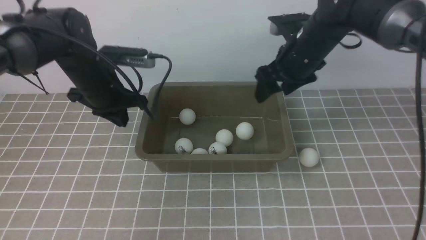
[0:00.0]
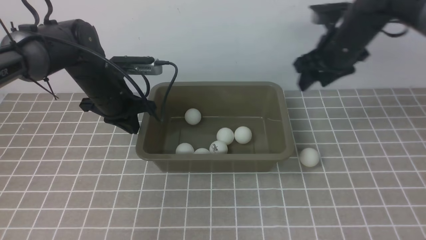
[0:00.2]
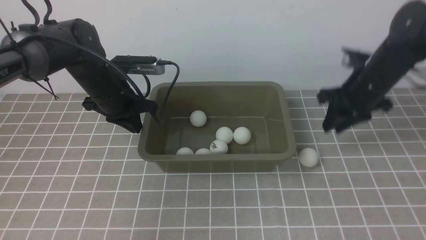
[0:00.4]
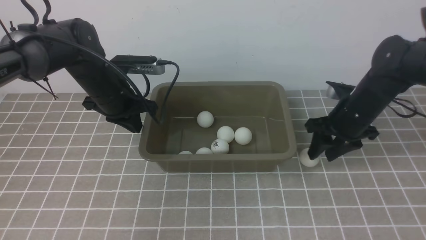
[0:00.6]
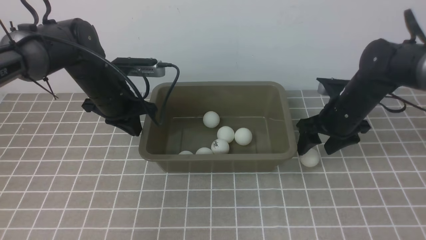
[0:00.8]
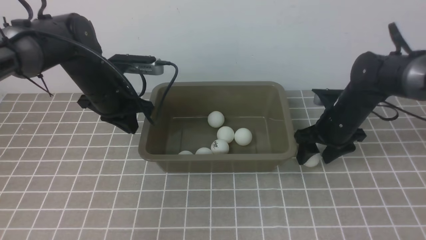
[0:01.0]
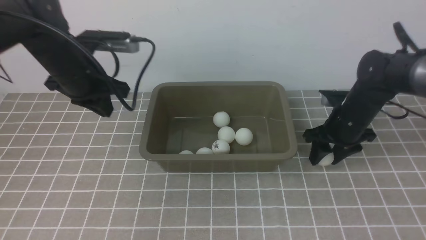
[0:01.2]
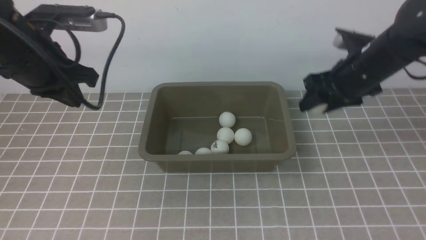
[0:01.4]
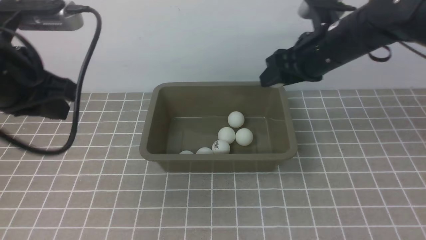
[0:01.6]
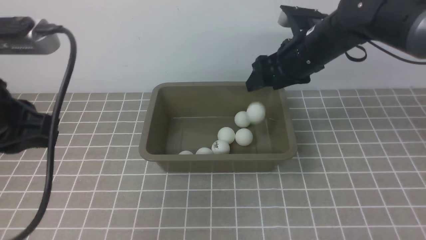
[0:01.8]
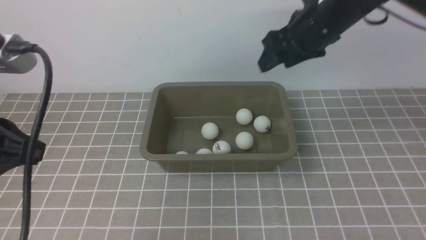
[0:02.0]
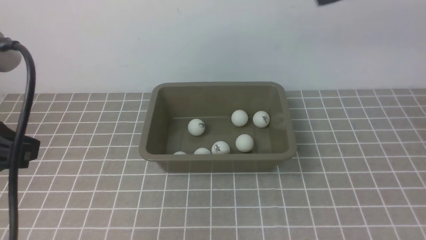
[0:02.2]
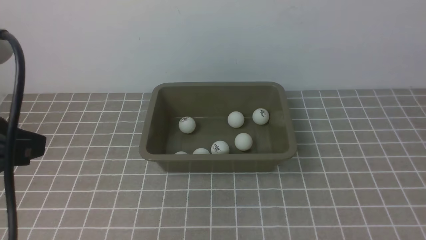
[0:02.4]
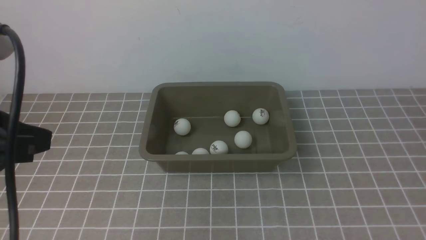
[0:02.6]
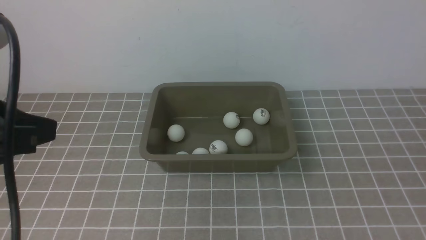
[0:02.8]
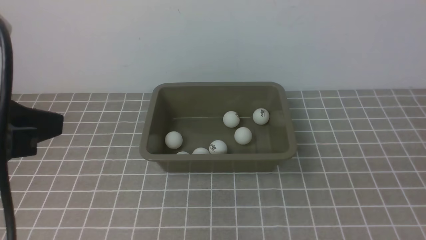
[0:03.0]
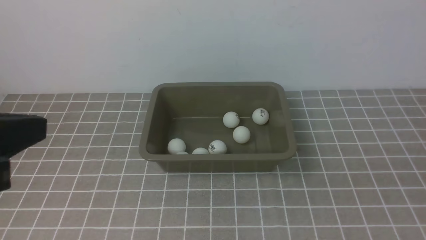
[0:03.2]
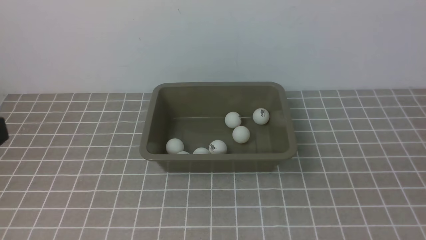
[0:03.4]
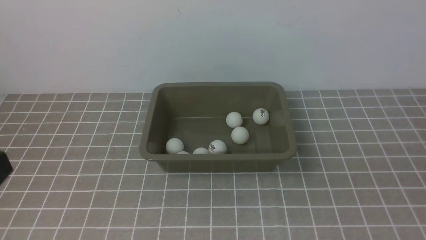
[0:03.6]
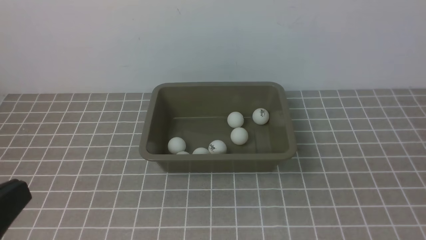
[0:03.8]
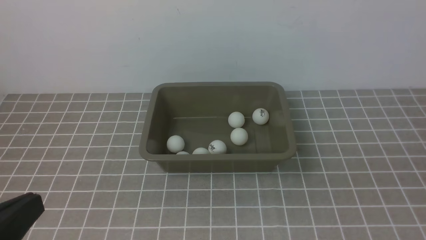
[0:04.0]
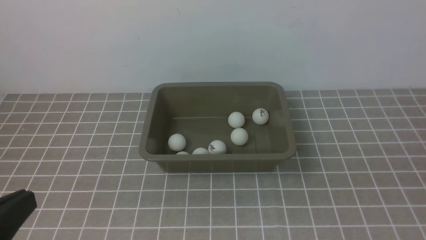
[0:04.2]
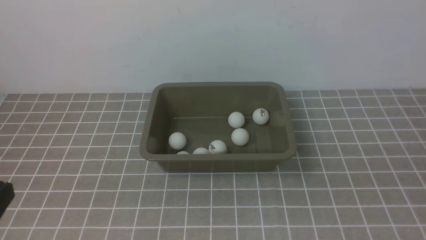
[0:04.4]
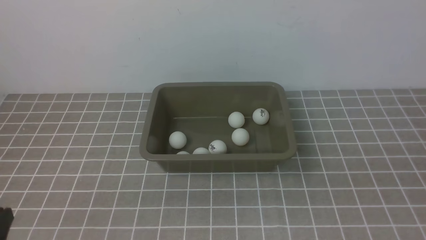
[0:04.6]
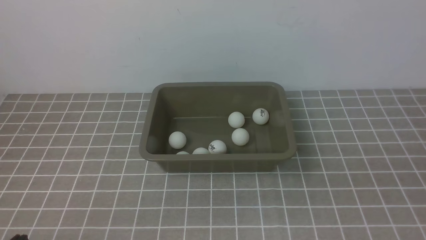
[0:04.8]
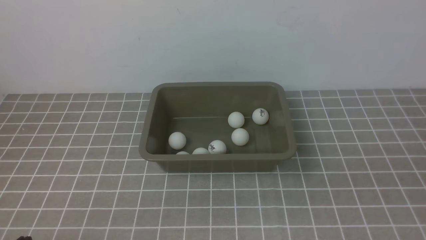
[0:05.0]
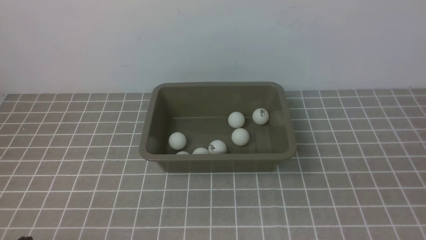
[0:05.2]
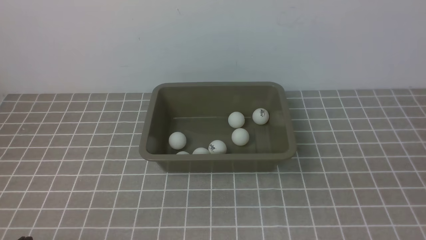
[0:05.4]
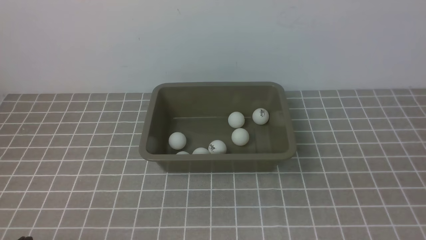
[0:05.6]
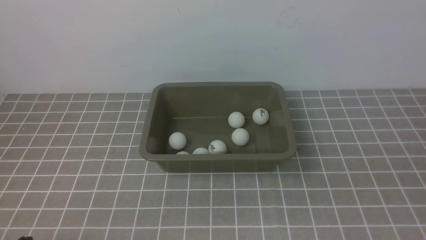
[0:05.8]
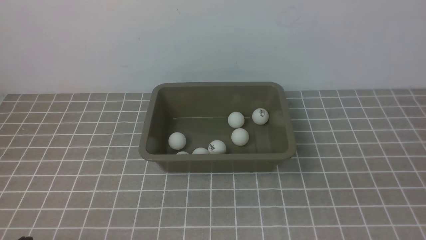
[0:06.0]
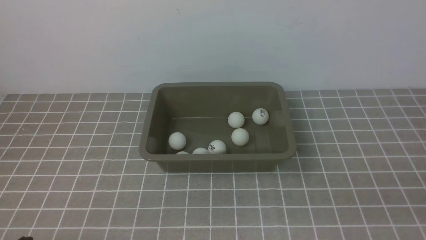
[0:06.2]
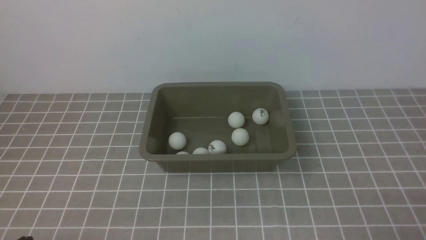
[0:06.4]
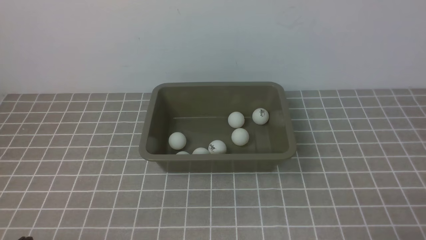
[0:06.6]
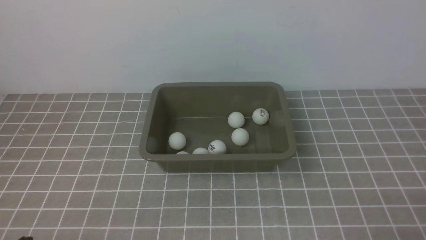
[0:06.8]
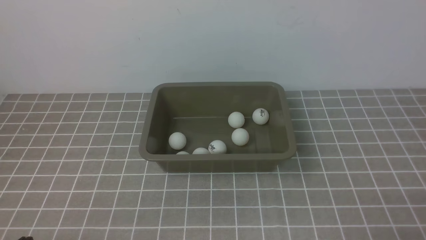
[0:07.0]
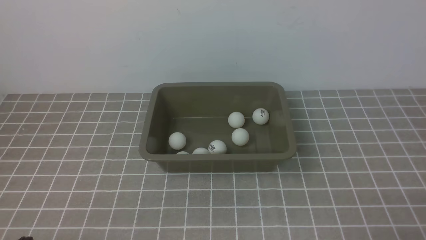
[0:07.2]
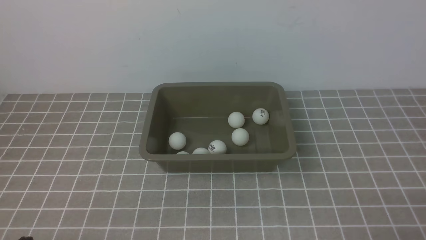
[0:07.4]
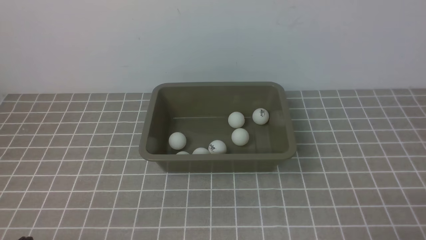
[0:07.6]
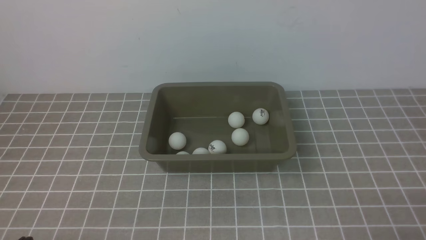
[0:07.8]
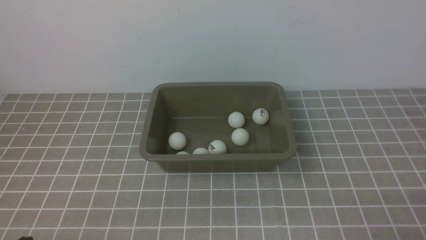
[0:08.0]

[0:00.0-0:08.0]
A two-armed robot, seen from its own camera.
Step, 0:00.2 to 0:01.2: use the left arm to clamp the table tennis ball closest to it.
Step, 0:01.4 to 0:02.0: use the left arm to put the table tennis ball into the box.
0:00.0 to 0:01.6: The left gripper is displaced backward and upward by roughly 20 cm; the right gripper goes downward and returns, approximately 10 cm each way.
0:01.6 to 0:03.2: The left gripper goes approximately 15 cm backward. Meanwhile the right gripper shifts roughly 35 cm backward, and closes.
0:03.2 to 0:04.8: The left gripper heads downward, covering roughly 20 cm.

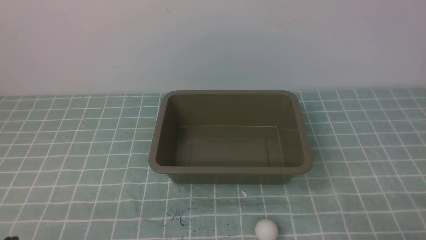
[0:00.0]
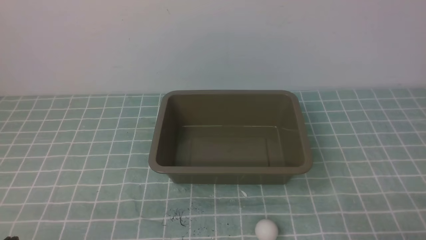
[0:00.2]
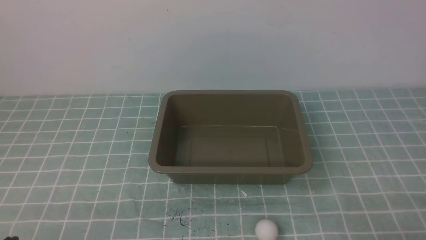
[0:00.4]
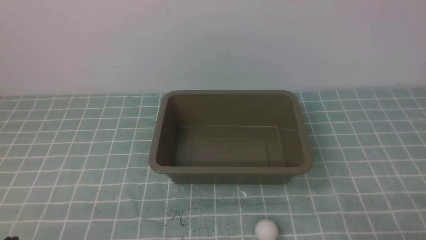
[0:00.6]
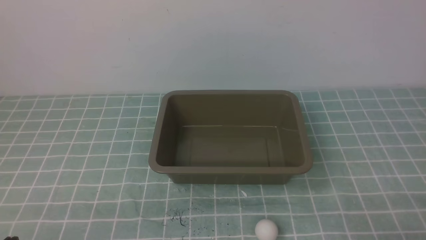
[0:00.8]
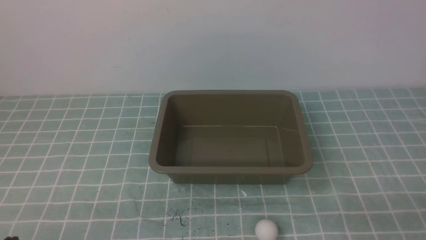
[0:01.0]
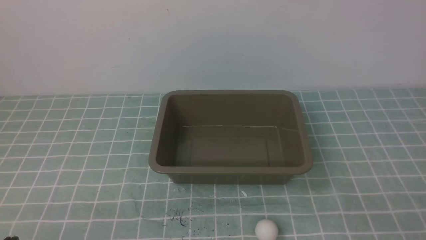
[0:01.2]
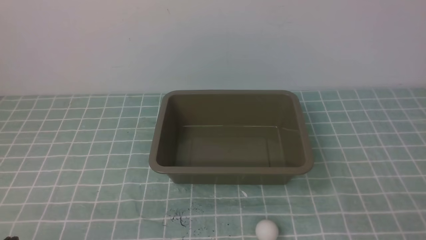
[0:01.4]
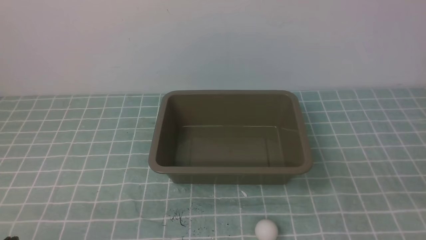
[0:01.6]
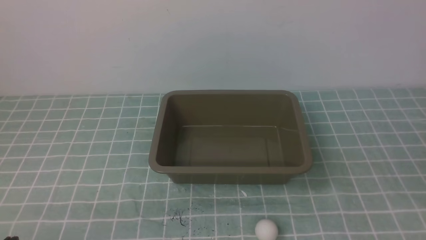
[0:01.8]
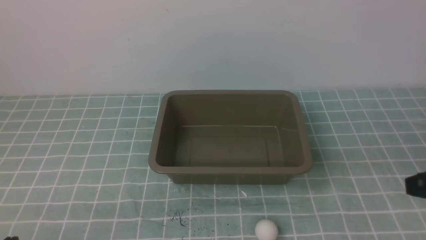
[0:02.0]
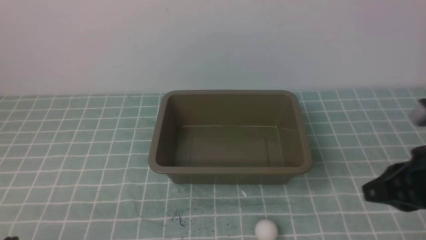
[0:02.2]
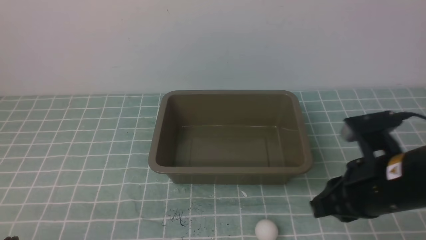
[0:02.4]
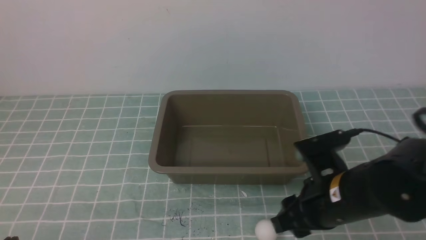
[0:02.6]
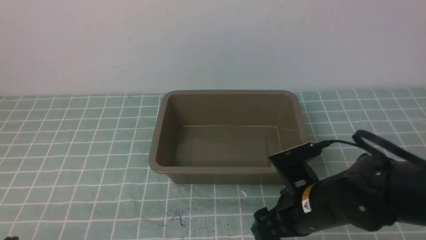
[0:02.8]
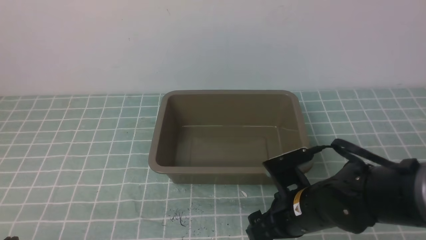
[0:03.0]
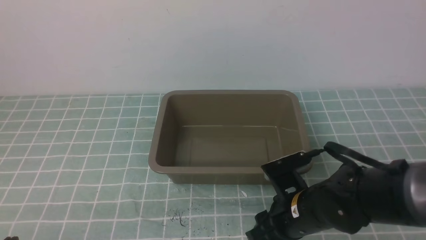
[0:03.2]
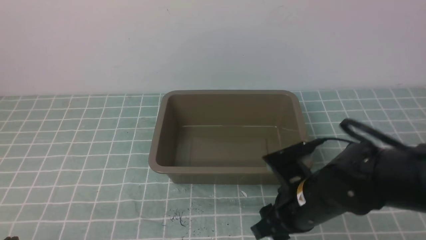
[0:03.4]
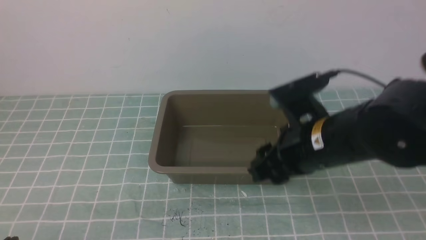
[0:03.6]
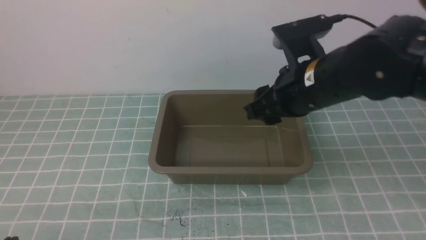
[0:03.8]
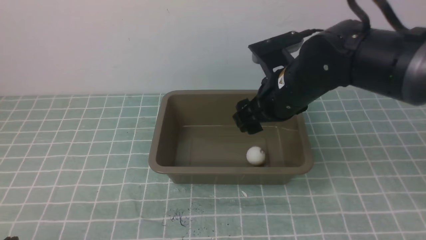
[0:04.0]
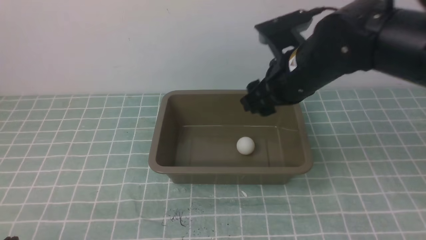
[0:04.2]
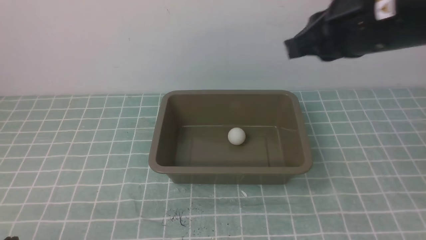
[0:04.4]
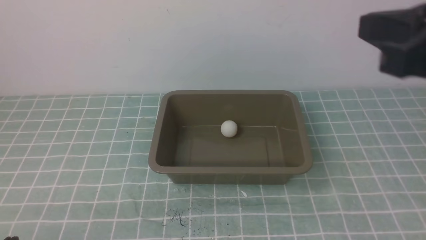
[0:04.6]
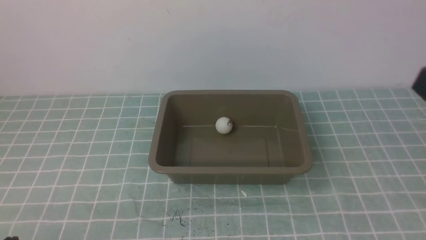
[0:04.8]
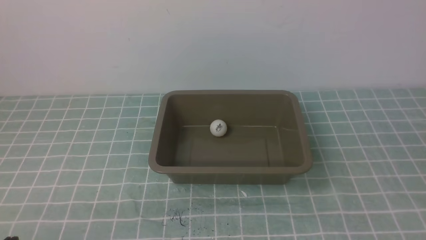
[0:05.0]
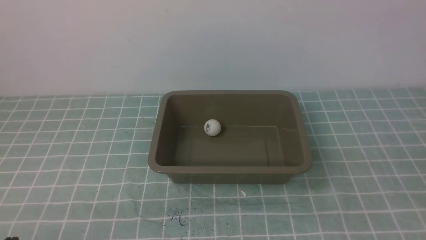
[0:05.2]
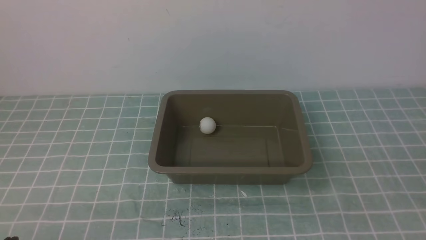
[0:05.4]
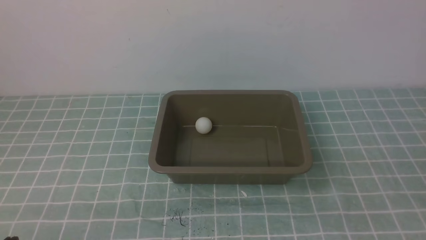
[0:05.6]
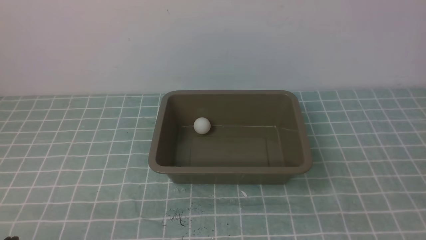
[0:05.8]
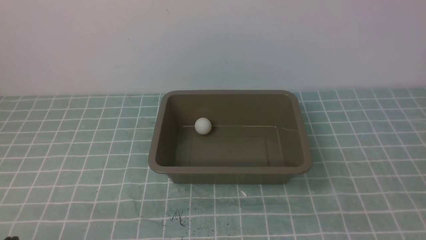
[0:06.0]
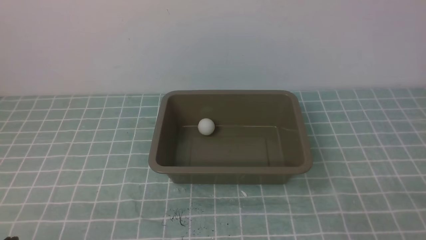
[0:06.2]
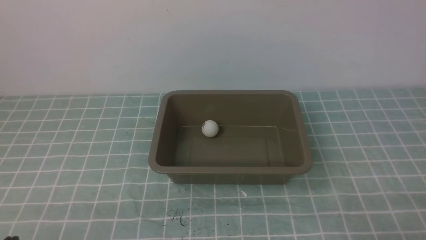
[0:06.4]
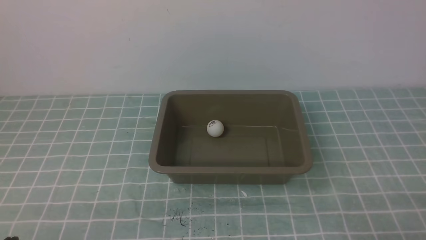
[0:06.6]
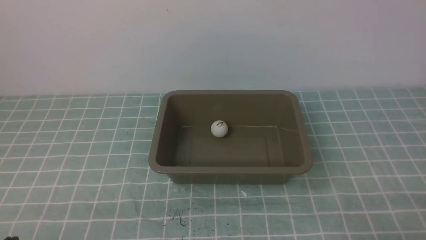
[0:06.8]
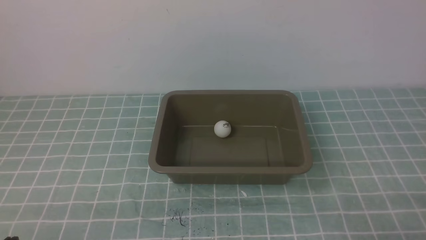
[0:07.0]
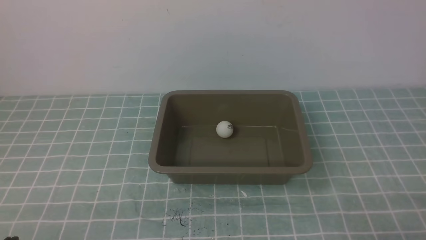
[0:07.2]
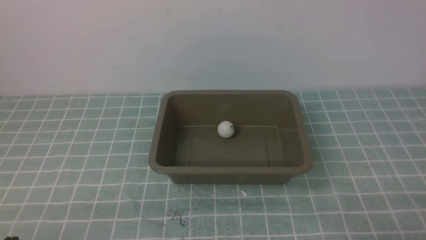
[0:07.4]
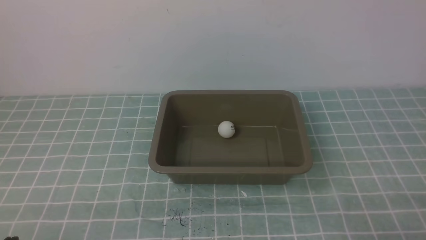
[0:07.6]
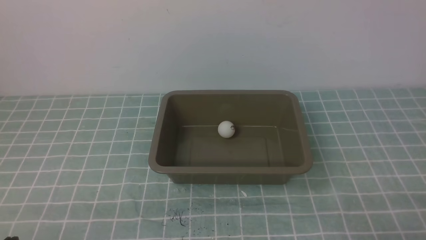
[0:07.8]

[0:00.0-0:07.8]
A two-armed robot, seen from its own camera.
Step, 0:00.0 to 0:03.4: use the right arm to clamp the table tennis ball closest to it.
Step, 0:03.6 to 0:04.0: use the right arm to put the table tennis ball into the box.
0:01.6 to 0:03.2: The right gripper travels to the left, forward and downward by roughly 25 cm, and opens its fingers.
0:03.2 to 0:04.6: The right gripper heads upward and to the right, covering about 25 cm, and closes its fingers.
0:04.6 to 0:06.2: The right gripper goes approximately 25 cm downward and backward.
